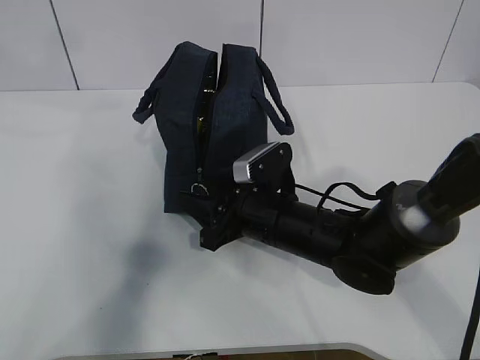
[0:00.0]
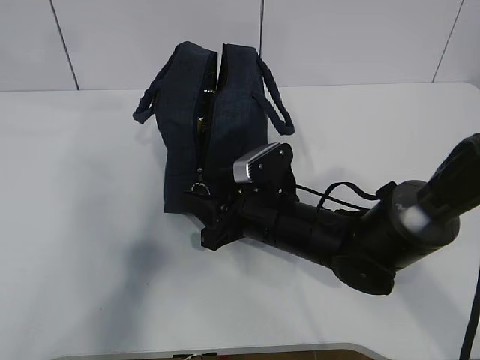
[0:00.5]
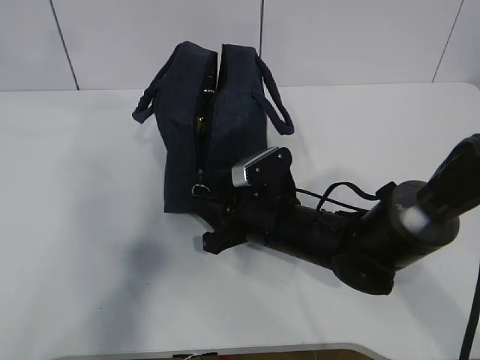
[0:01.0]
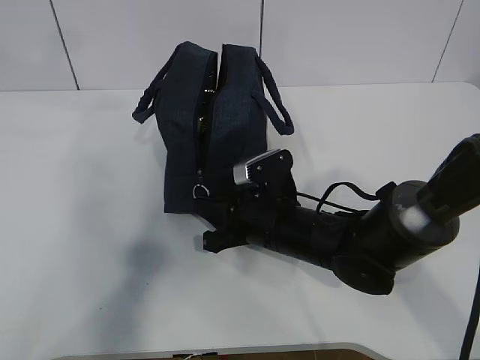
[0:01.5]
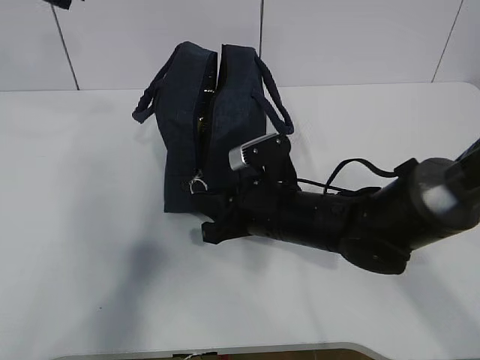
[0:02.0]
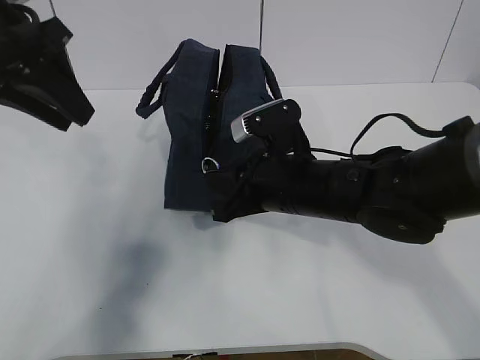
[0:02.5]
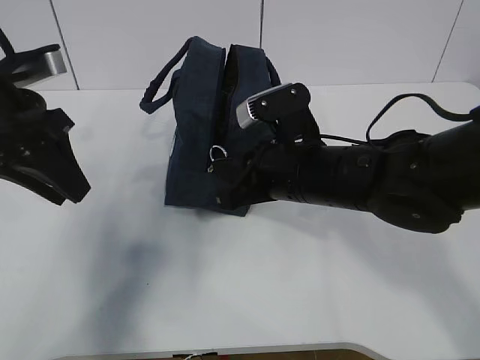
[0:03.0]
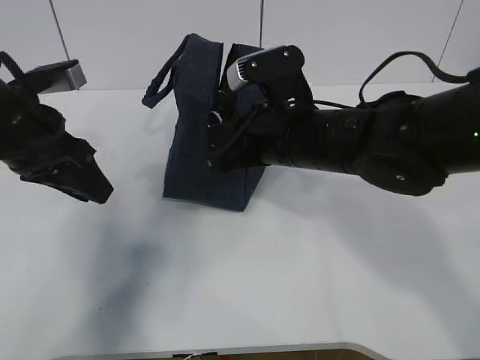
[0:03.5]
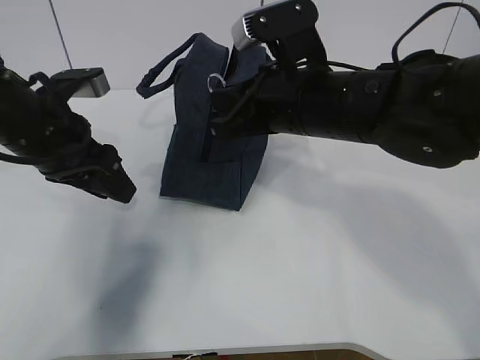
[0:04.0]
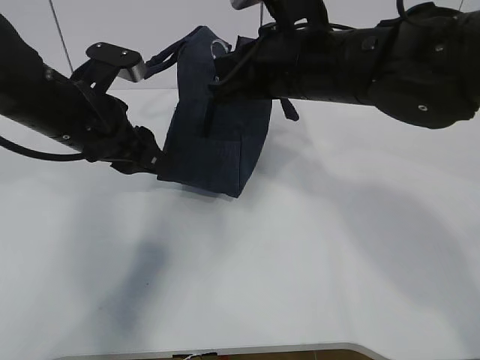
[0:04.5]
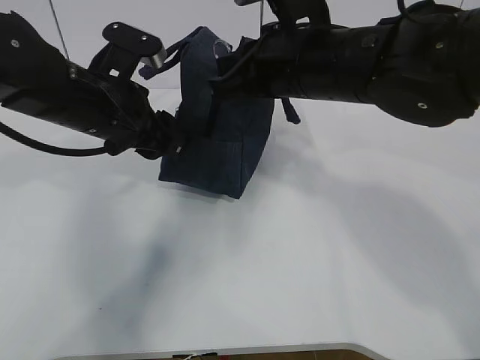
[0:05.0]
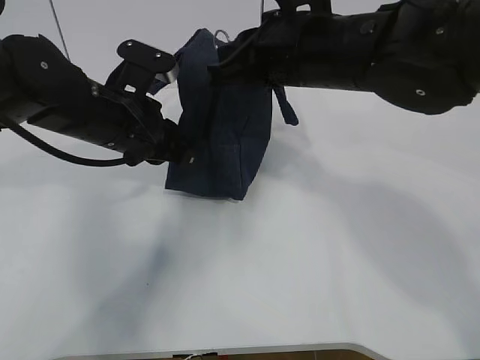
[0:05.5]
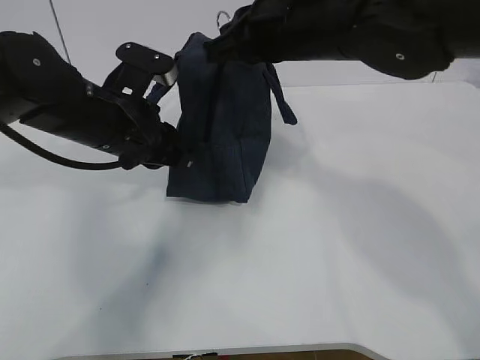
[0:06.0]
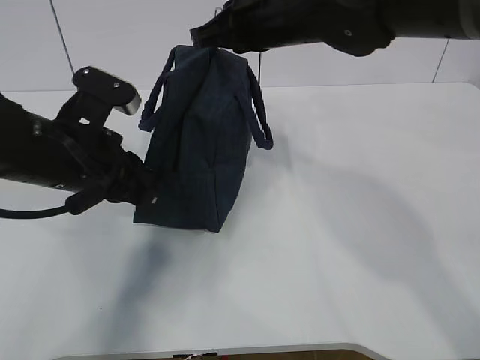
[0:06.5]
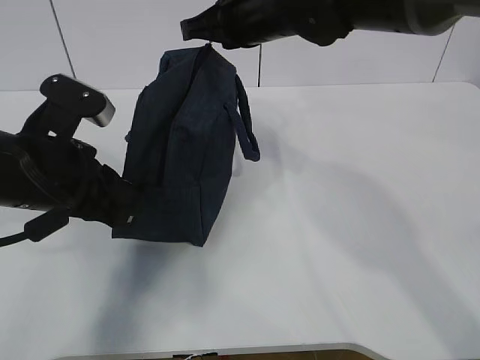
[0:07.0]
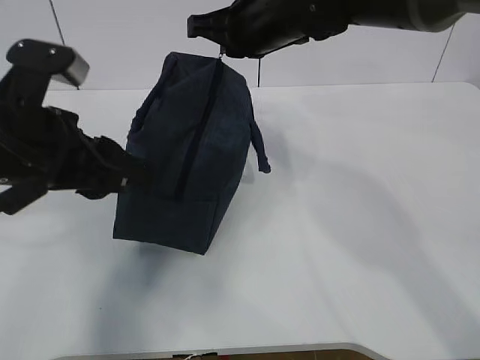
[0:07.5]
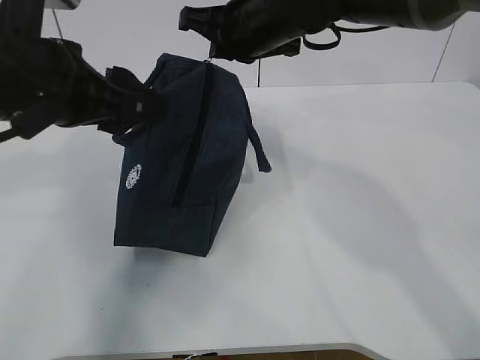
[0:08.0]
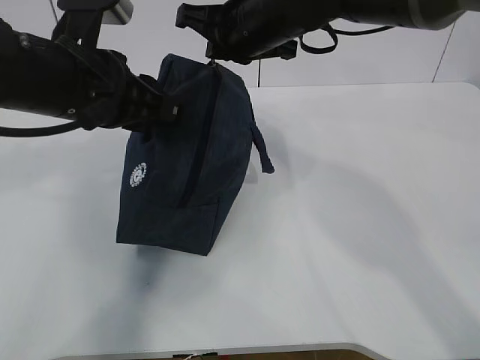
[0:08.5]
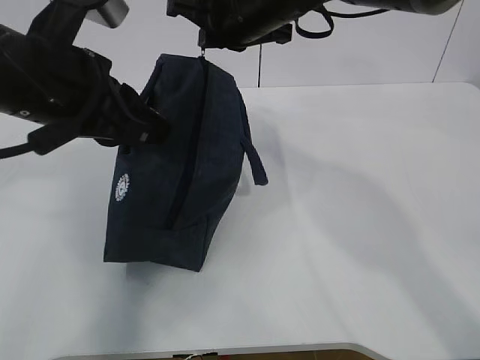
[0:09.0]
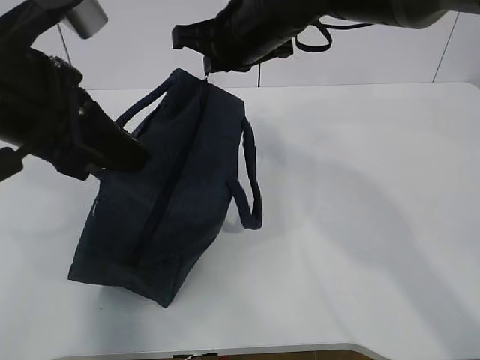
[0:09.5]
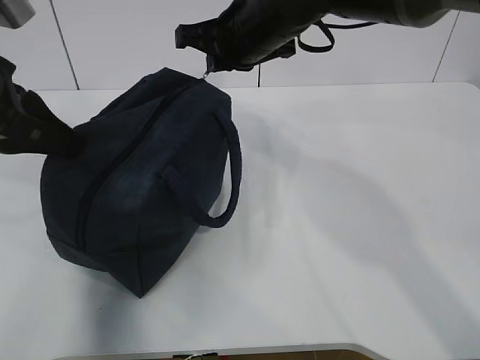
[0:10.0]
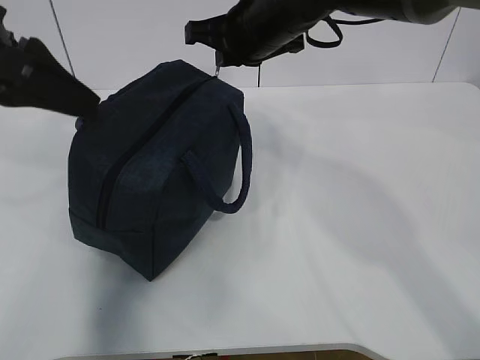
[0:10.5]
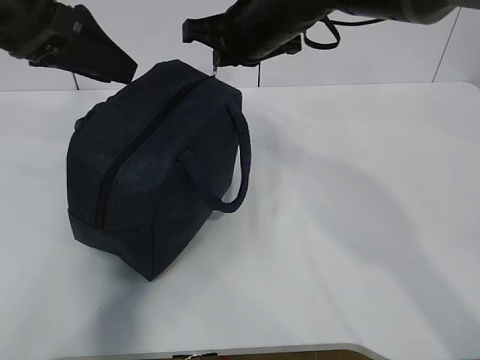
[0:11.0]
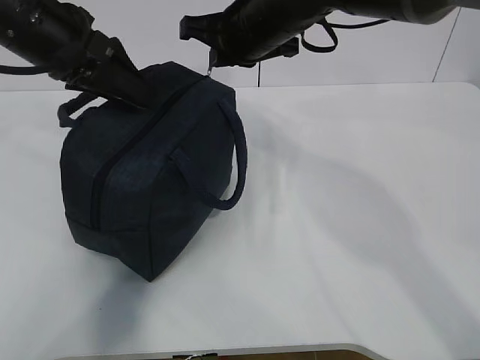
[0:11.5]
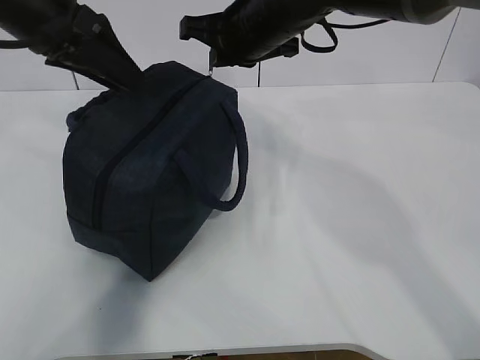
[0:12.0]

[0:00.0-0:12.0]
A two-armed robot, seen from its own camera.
Step, 0.0 to 3.0 s: Pull the zipper with your right hand.
0.0 to 2.0 s: The right gripper closes.
2.0 to 4.0 s: The left gripper is displaced downward by some 20 cm, while the right gripper shifts roughly 15 cm upward.
4.0 to 6.0 s: The left gripper goes about 5 cm to the right, and closes its fingers. The right gripper is displaced upward by about 5 cm.
6.0 to 8.0 s: The right gripper is displaced forward by roughly 5 cm, while the left gripper moves upward and backward, about 10 cm, and opens up.
8.0 to 10.0 s: The left gripper moves to the left, about 5 cm, and closes.
10.0 to 12.0 s: The left gripper heads forward, covering roughly 10 cm, and opens up.

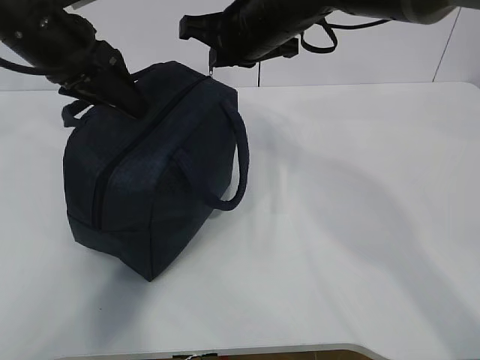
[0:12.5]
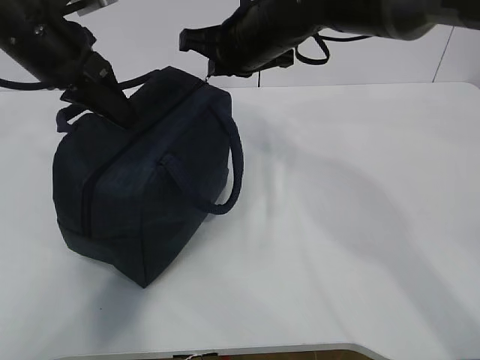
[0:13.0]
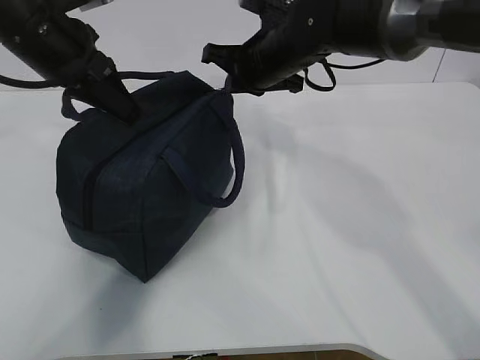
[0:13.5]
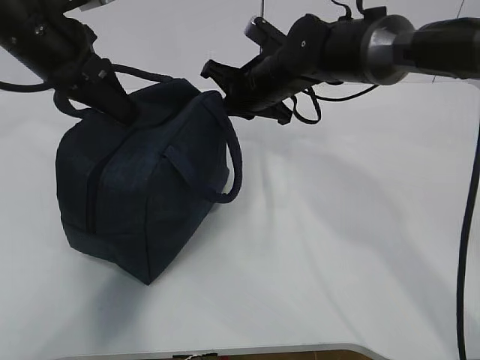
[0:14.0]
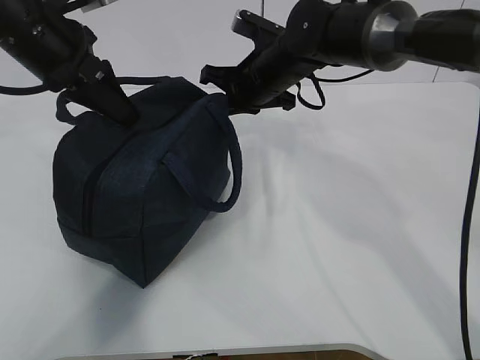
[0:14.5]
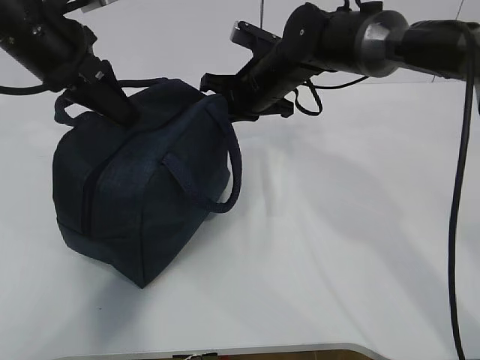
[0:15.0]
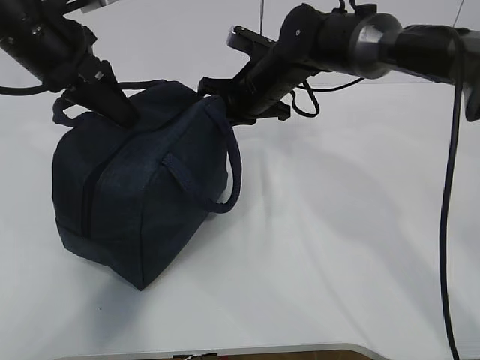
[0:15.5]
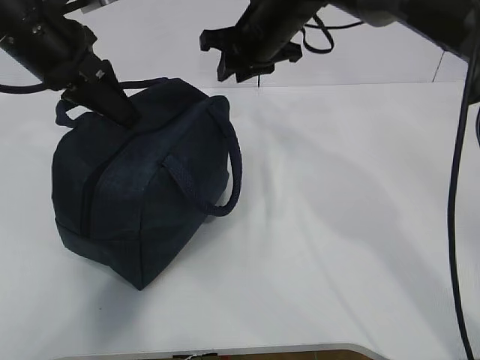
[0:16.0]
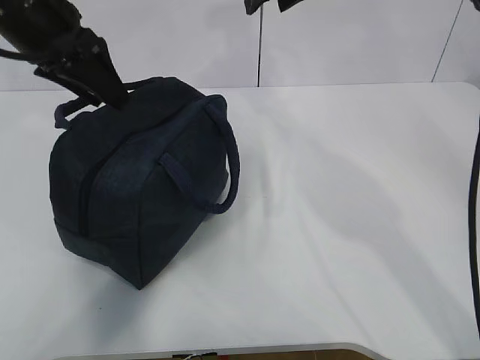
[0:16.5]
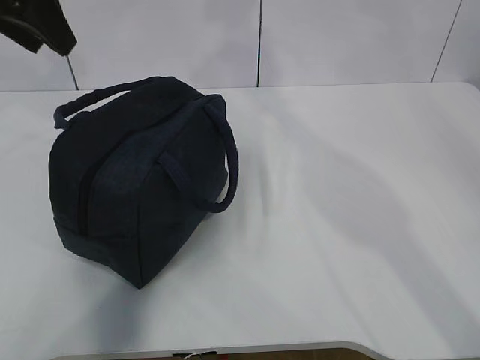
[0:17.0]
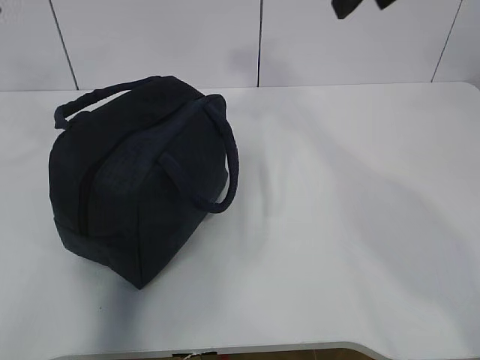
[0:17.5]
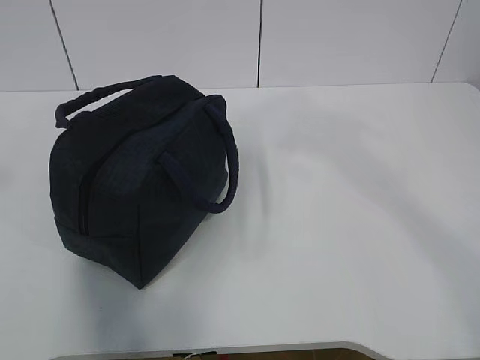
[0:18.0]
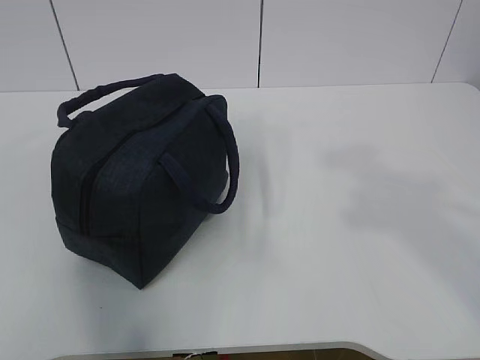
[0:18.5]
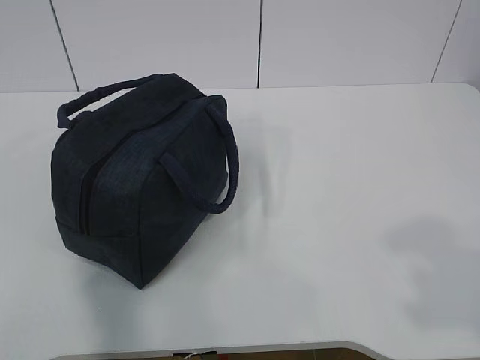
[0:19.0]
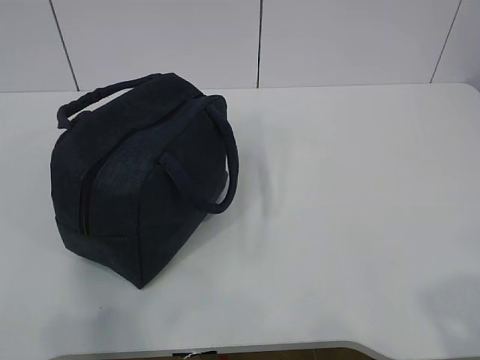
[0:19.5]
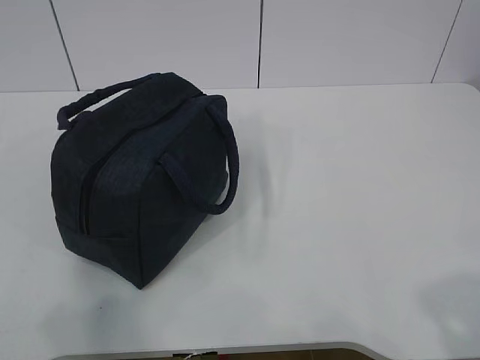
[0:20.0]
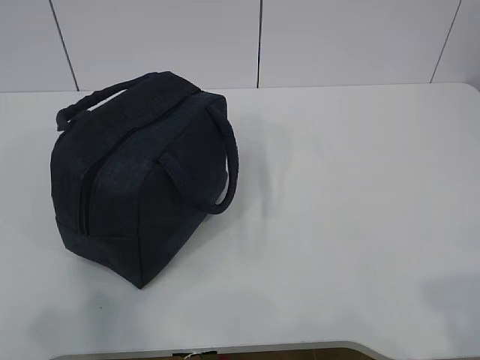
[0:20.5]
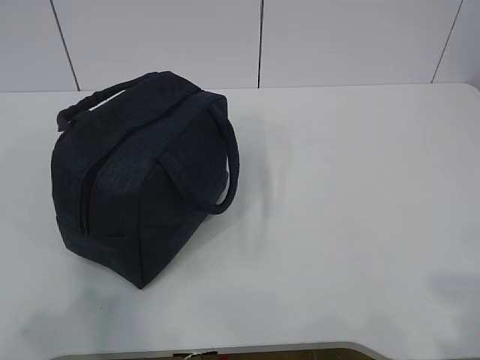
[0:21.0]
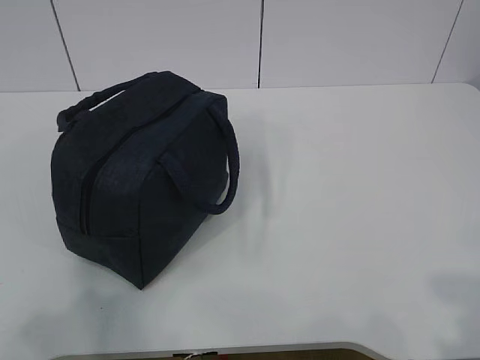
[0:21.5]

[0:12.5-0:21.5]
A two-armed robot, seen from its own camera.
12.5 to 14.5 s: The left gripper closes; the right gripper is displaced downward and forward by approximately 10 cm.
14.5 to 17.0 s: The left gripper heads upward, covering approximately 10 cm, and opens up; the right gripper shifts some 20 cm upward, and opens its fingers.
17.0 to 19.5 s: The left gripper shifts about 35 cm backward.

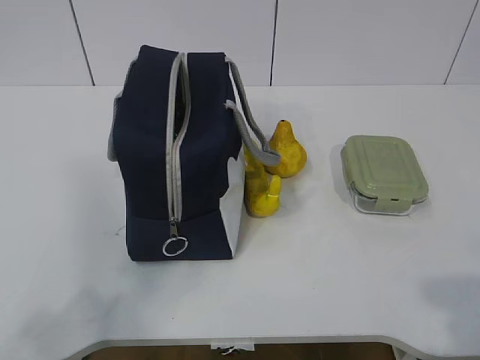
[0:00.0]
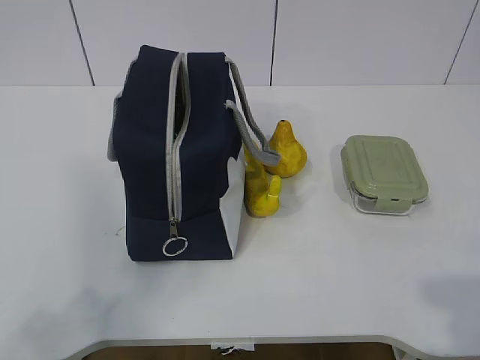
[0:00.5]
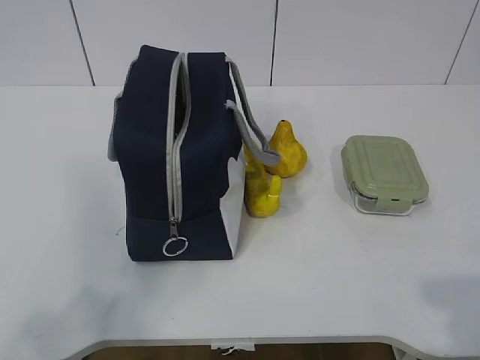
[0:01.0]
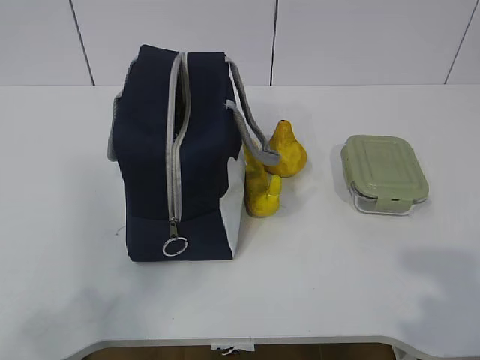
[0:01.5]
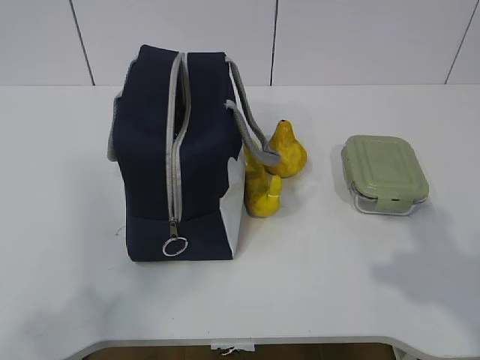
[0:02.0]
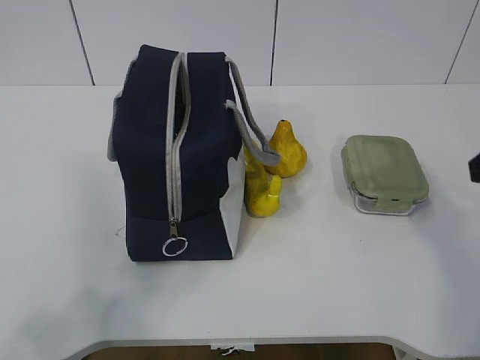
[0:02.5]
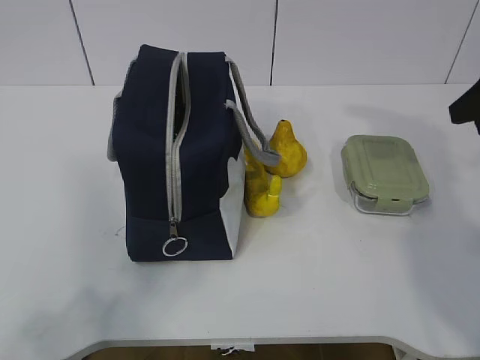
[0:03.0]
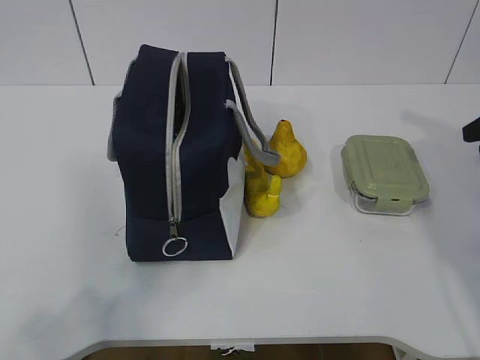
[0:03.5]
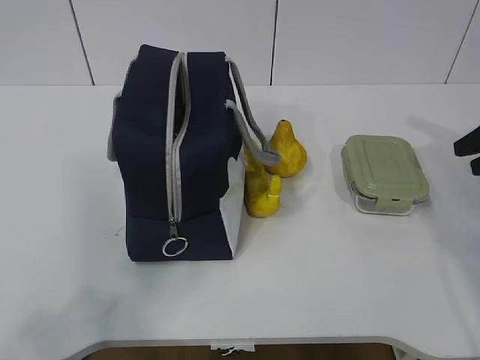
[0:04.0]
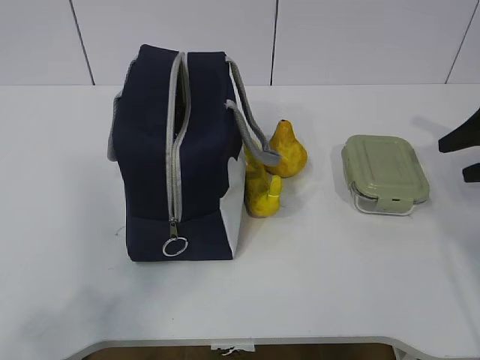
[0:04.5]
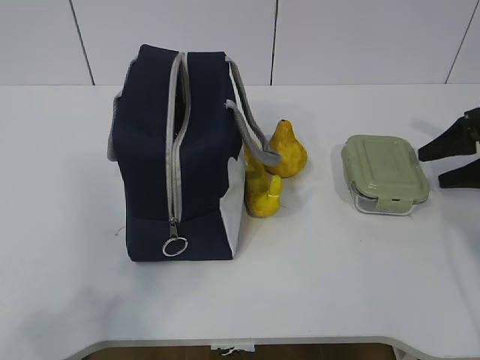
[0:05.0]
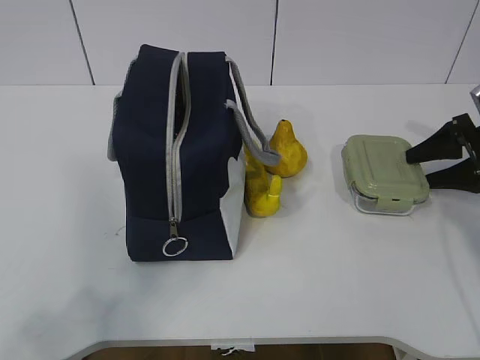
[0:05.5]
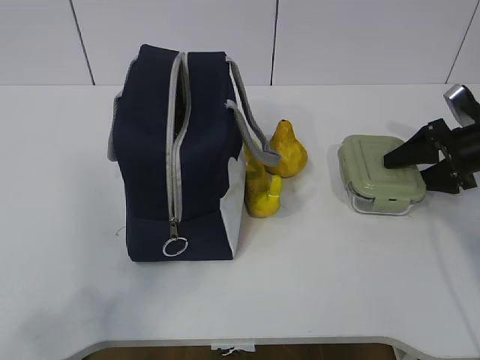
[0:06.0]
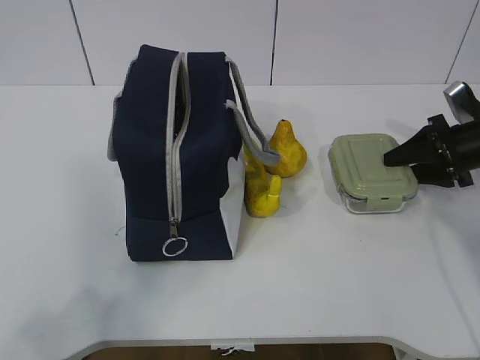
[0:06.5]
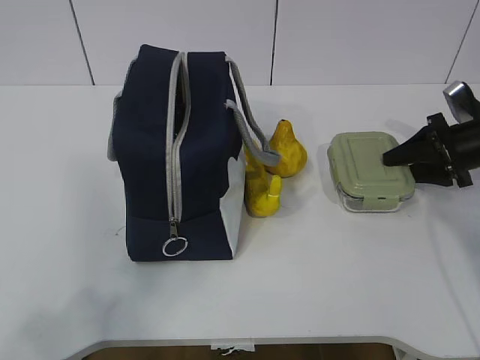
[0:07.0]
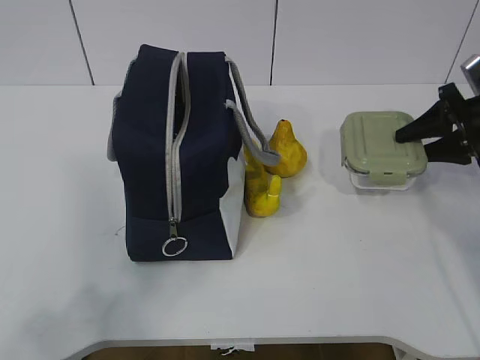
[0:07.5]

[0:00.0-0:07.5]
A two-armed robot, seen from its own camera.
Step, 0.0 to 5.5 s: Grab the lunch box with your right hand.
2.0 to 4.0 s: The right gripper moves forward and to the right, some 25 cm.
4.0 to 5.5 s: The right gripper moves downward and forward, roughly 10 cm, and opens its fingers.
5.5 to 7.5 s: The right gripper closes up.
